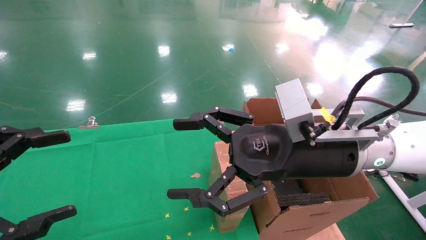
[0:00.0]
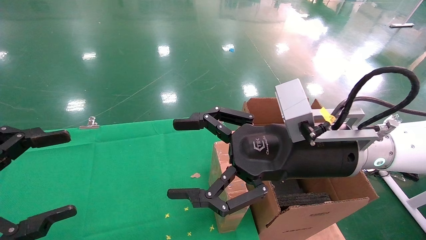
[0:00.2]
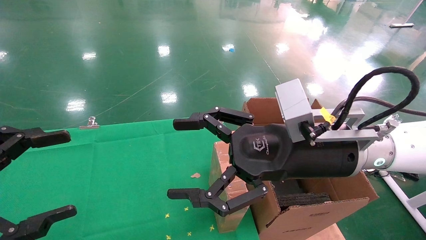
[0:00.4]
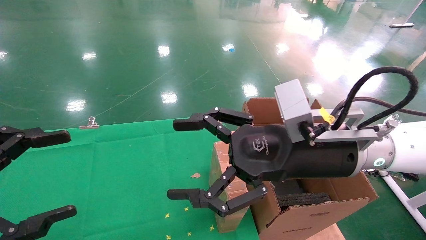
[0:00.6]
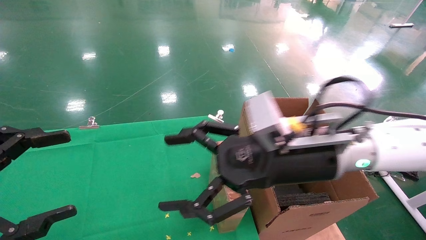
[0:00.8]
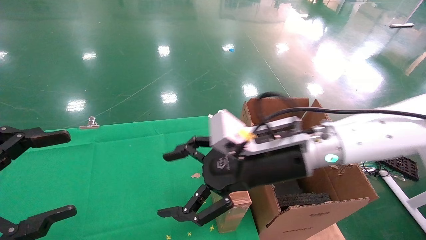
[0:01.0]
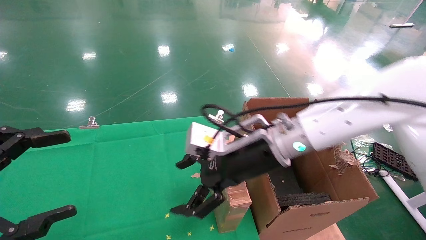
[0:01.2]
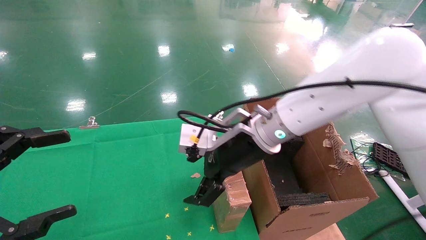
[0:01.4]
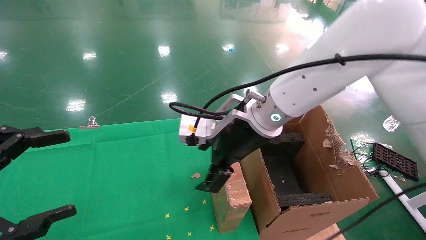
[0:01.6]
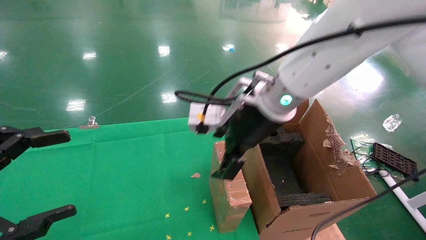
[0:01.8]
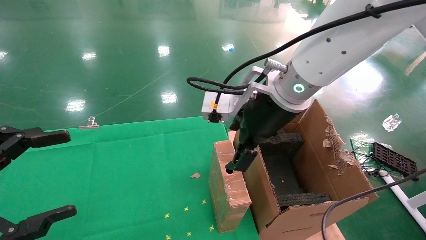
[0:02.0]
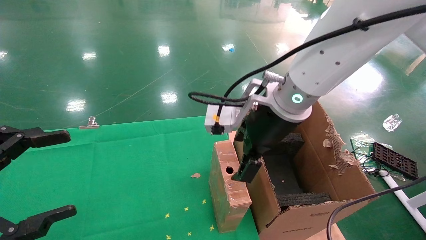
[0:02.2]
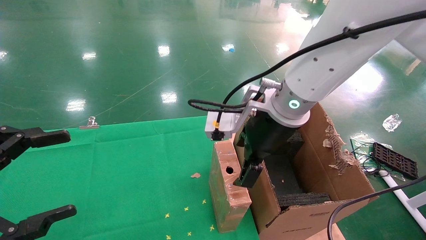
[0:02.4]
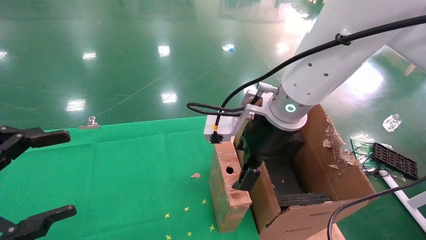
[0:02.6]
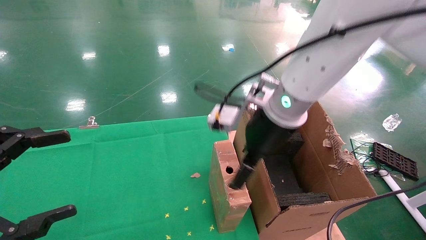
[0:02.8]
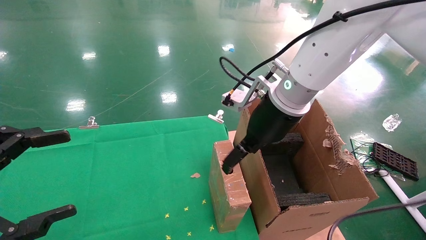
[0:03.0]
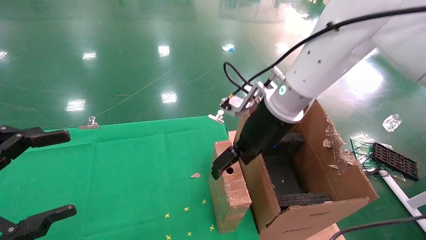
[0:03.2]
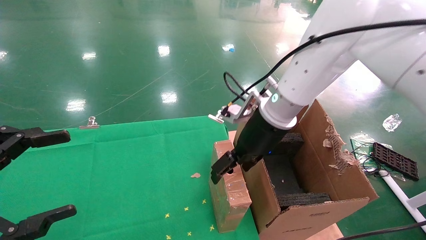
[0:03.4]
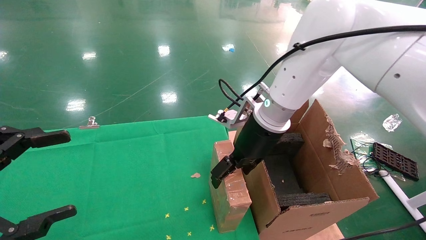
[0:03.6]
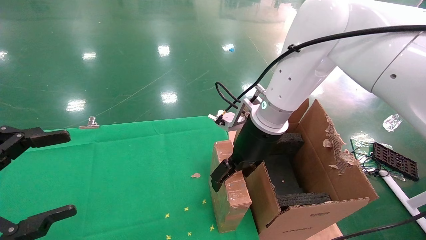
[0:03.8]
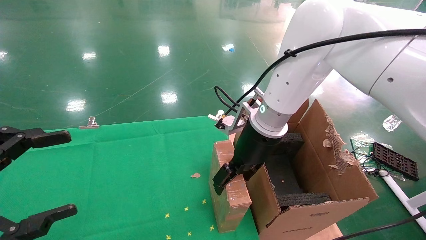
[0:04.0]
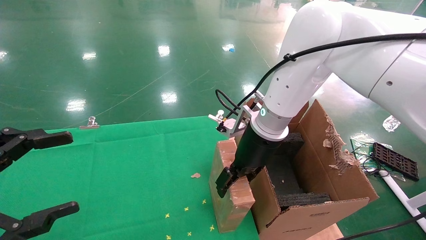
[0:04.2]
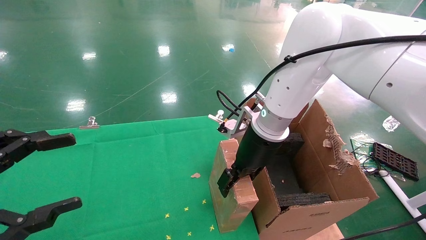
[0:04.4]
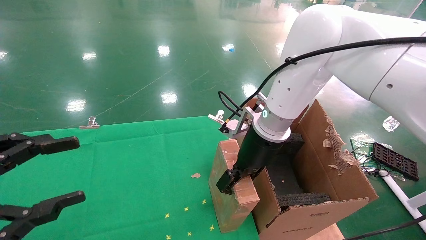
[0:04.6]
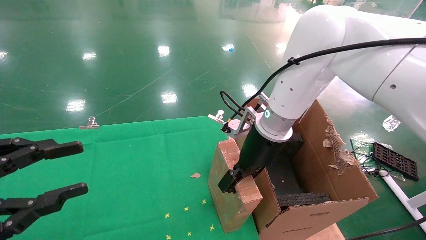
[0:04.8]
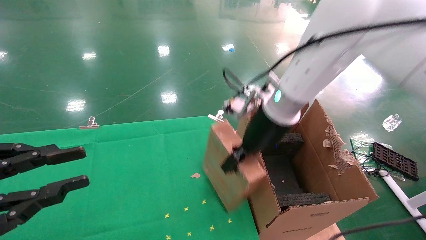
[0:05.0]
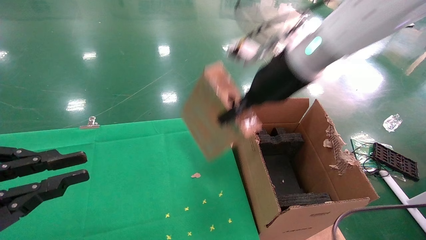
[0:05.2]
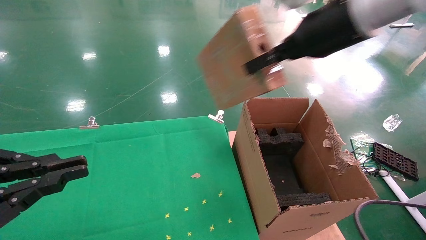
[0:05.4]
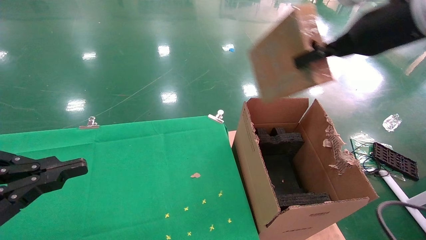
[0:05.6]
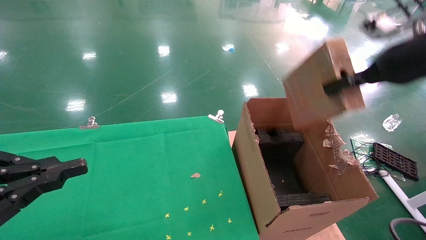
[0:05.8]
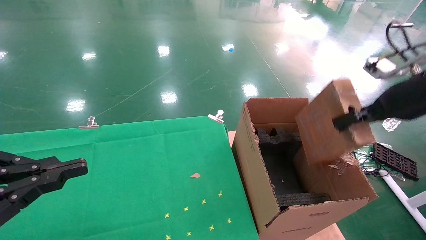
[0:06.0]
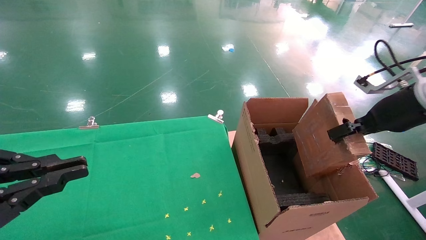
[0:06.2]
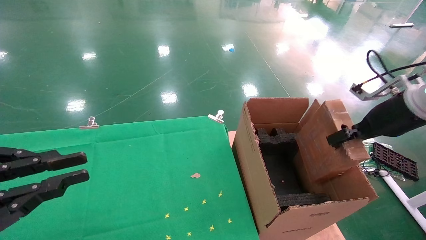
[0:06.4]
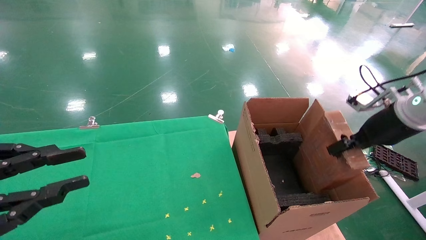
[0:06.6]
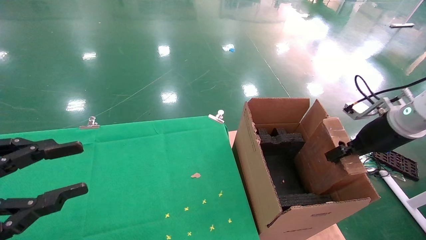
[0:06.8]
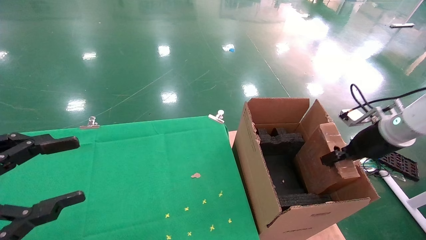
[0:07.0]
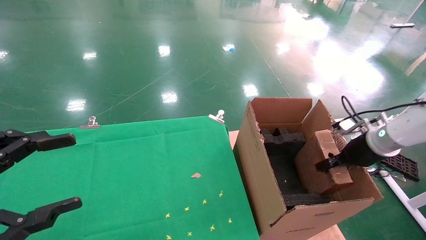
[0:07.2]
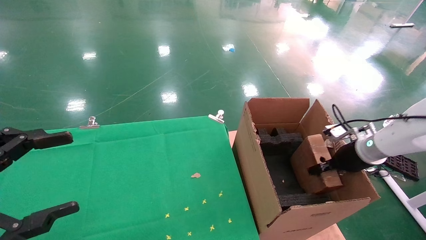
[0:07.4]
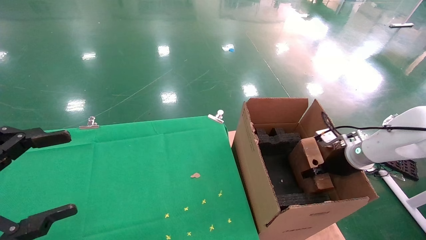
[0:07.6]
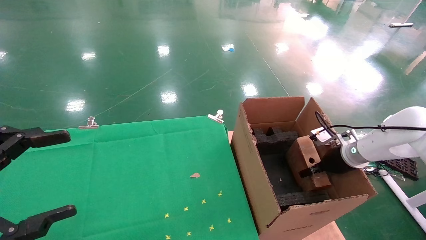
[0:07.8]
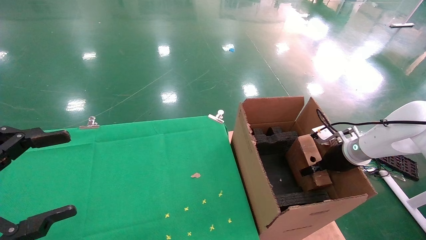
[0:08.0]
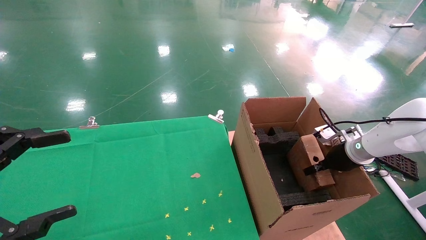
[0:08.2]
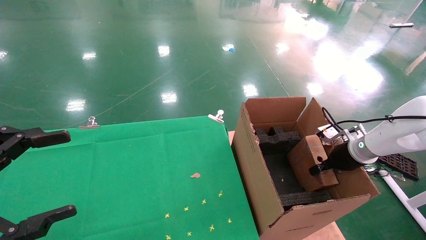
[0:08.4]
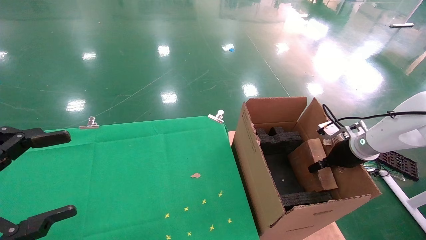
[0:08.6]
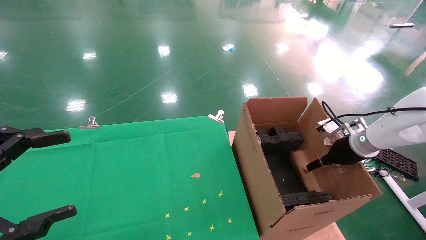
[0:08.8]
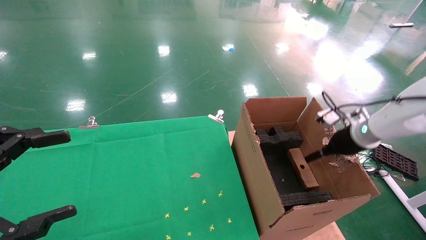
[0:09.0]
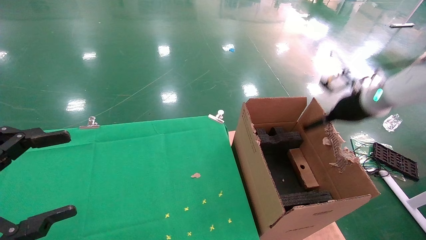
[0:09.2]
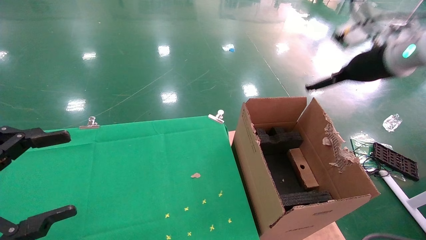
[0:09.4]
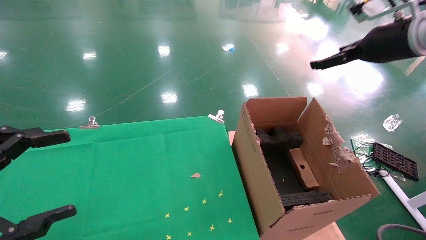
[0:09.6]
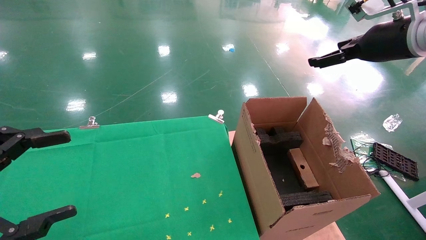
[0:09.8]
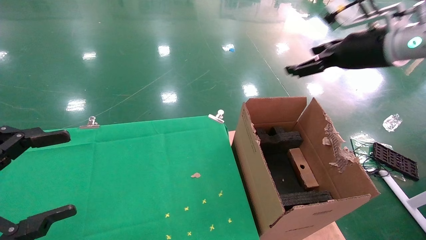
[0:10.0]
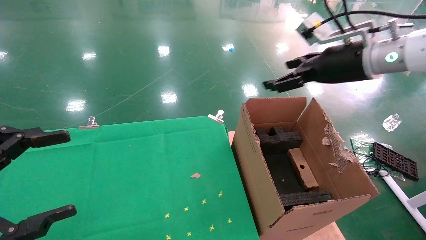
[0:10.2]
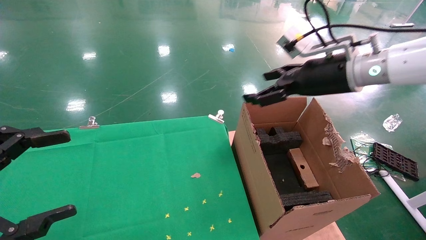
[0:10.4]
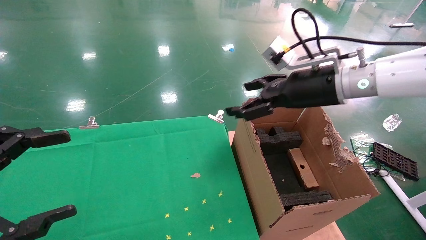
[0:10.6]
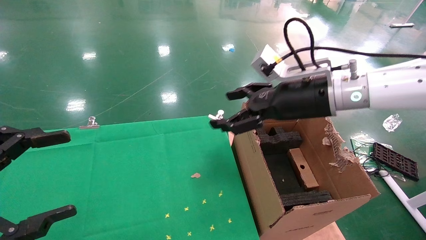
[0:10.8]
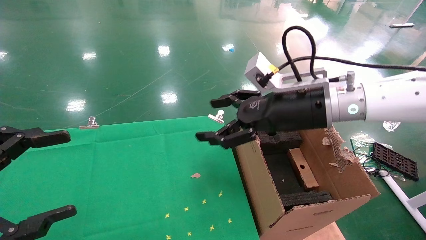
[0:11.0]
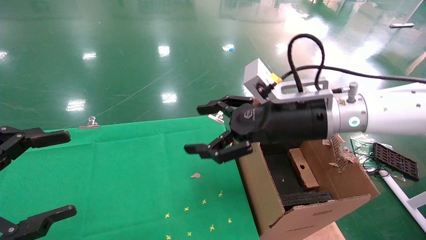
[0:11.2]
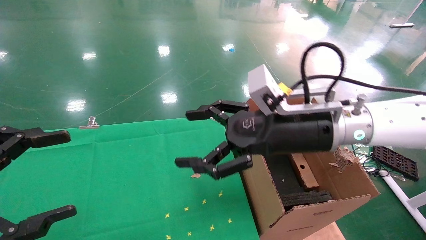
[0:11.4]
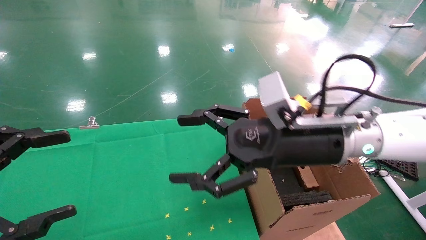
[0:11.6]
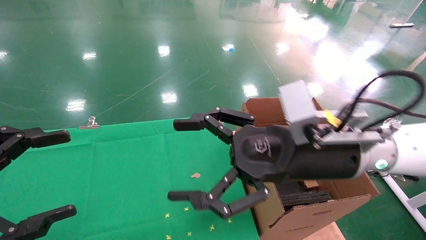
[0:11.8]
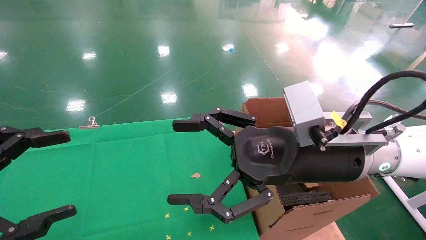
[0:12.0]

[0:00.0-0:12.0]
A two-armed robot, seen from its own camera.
Task of the whole recording: using a robotic arm to pick up a cardboard box and palace it the carton.
Step, 0:01.0 to 0:04.4: Pick up the mouse and the power cord paper box.
Step, 0:04.6 to 0:09.4: Place the mouse and the power cord paper box into the container.
0:00.0 to 0:01.6: The right gripper travels forward and to the left by approximately 10 cm.
0:03.0 to 0:04.4: The right gripper travels downward by about 5 cm, and closes its fingers.
0:04.4 to 0:06.0: The right gripper moves to the right, approximately 25 cm, and closes its fingers. Meanwhile the left gripper closes.
0:06.0 to 0:07.6: The right gripper moves downward and forward, approximately 25 cm. The left gripper opens up.
0:07.6 to 0:09.0: The right gripper goes about 10 cm upward, and opens its fingers.
0:09.0 to 0:10.4: The right gripper shifts approximately 20 cm to the left and upward.
0:10.4 to 0:12.0: The right gripper goes roughly 15 cm backward, to the left and downward.

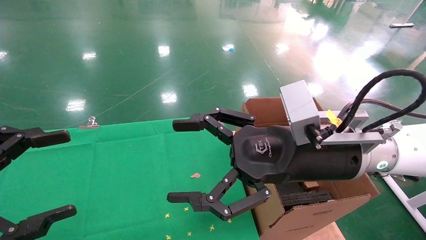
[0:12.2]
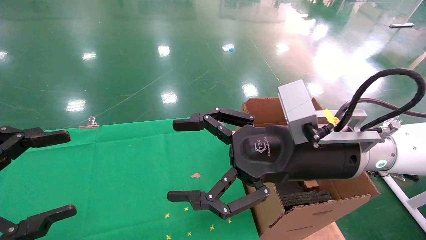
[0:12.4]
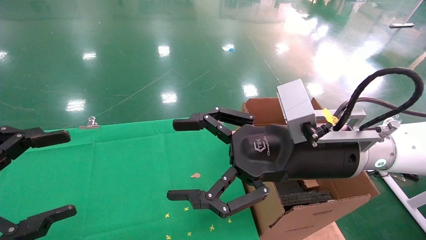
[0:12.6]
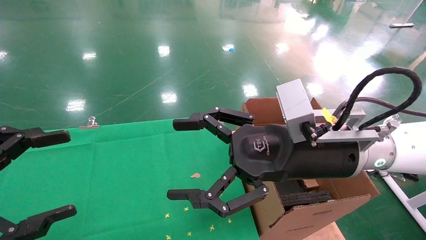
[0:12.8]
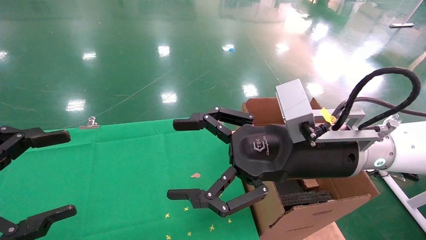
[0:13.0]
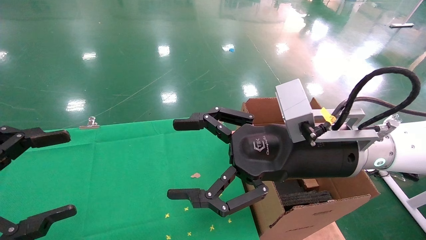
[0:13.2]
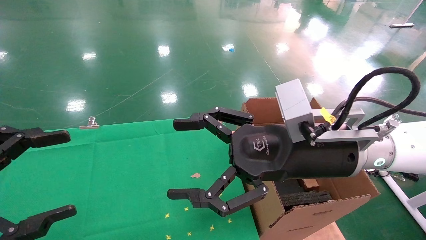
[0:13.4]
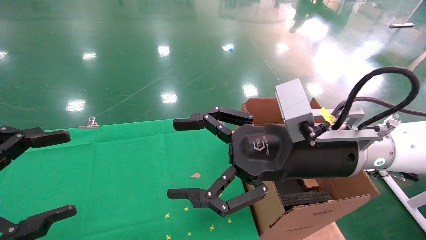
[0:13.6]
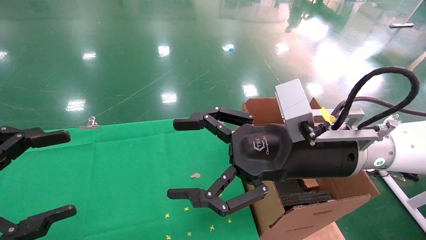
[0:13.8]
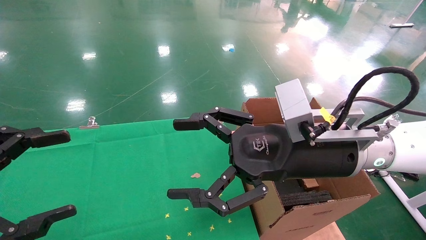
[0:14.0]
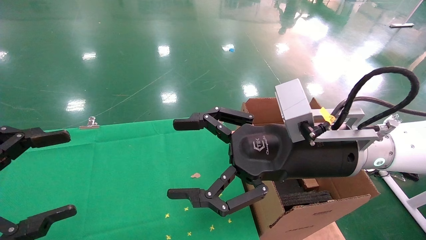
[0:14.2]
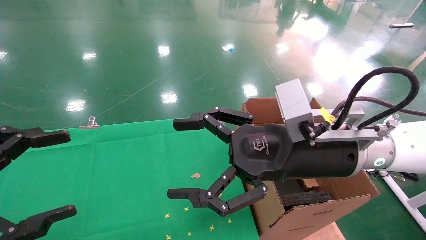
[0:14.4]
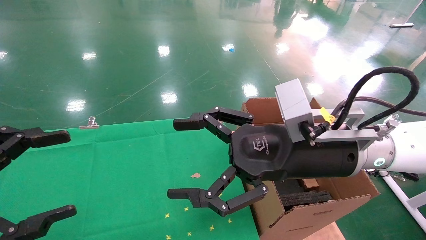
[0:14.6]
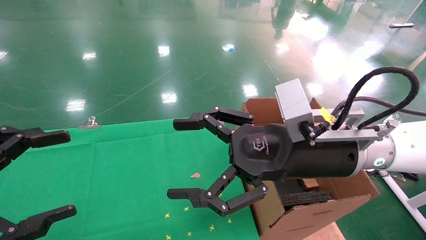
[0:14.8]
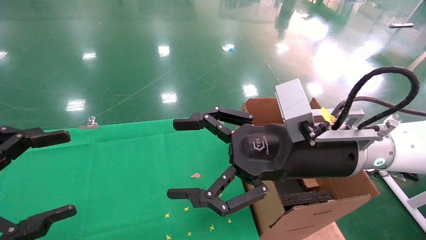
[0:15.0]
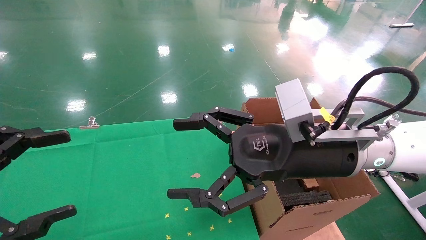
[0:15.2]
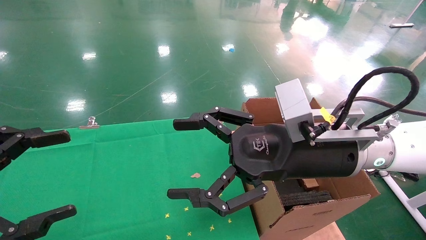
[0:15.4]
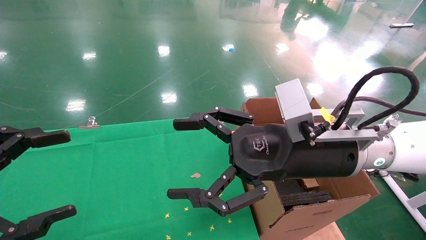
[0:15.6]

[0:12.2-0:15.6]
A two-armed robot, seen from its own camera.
Task of the whole recording: using a robotic arm to pick up a cardboard box and palace it the carton.
0:12.2 to 0:15.6: Both grippers stay about where they are.
